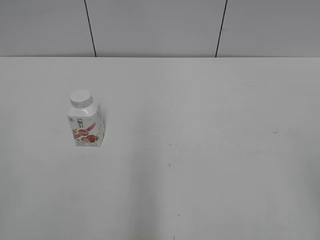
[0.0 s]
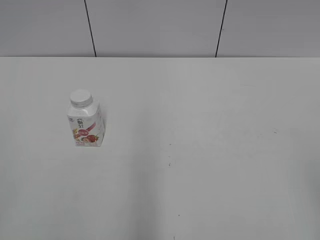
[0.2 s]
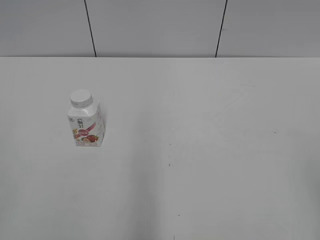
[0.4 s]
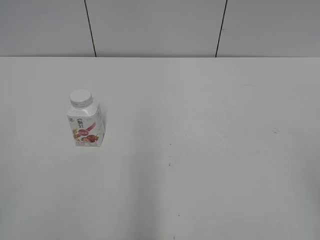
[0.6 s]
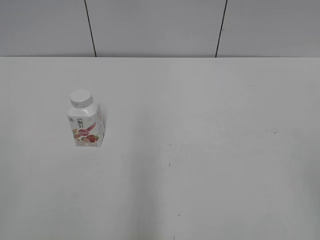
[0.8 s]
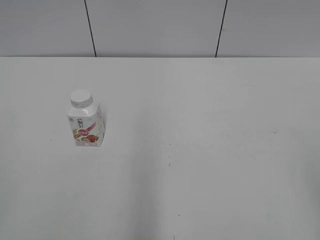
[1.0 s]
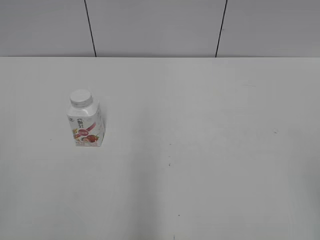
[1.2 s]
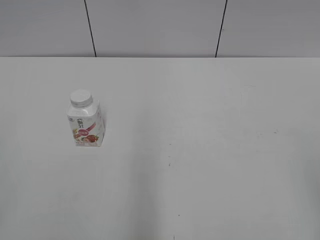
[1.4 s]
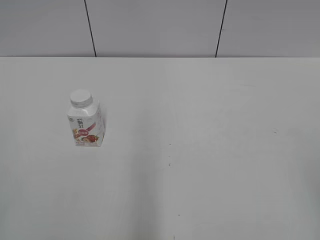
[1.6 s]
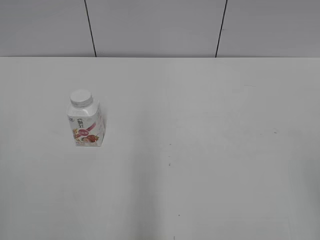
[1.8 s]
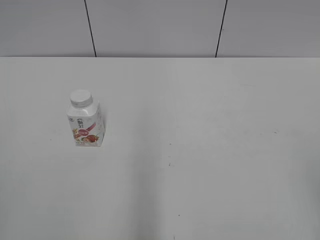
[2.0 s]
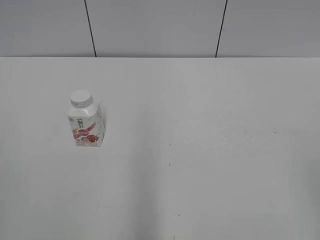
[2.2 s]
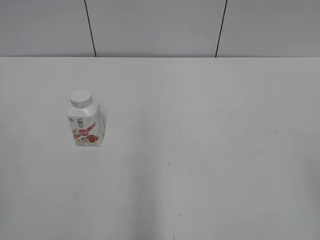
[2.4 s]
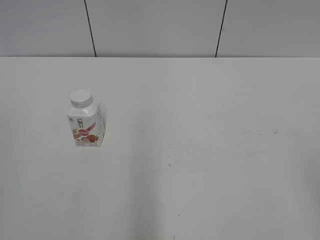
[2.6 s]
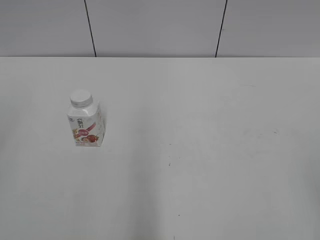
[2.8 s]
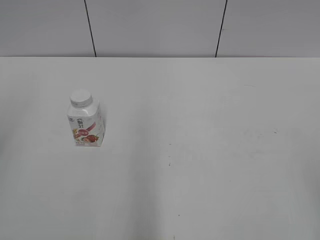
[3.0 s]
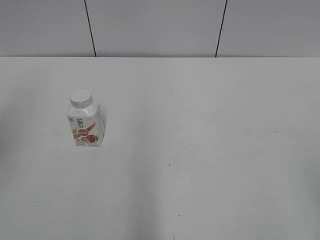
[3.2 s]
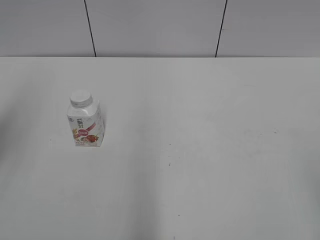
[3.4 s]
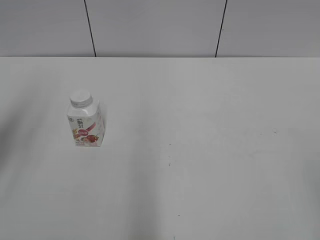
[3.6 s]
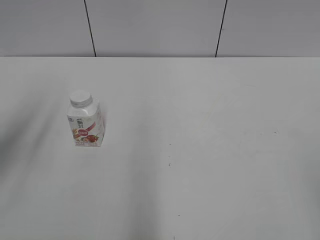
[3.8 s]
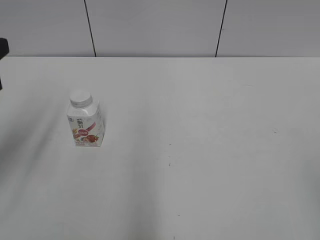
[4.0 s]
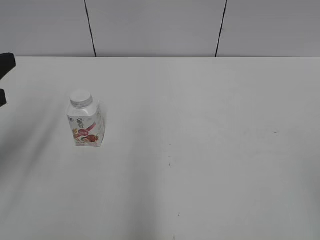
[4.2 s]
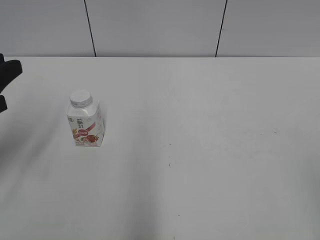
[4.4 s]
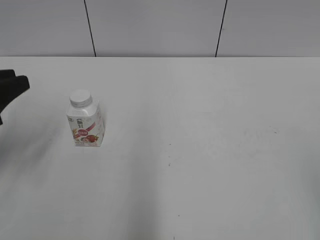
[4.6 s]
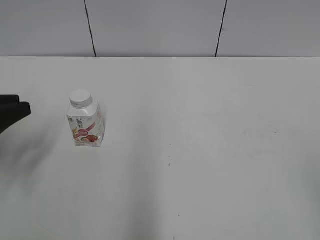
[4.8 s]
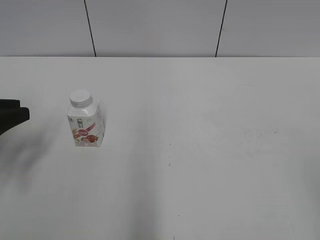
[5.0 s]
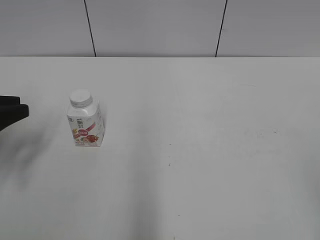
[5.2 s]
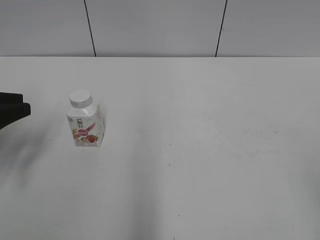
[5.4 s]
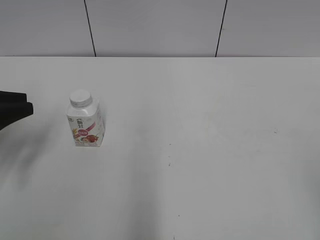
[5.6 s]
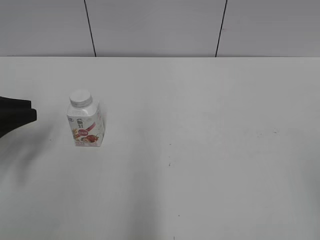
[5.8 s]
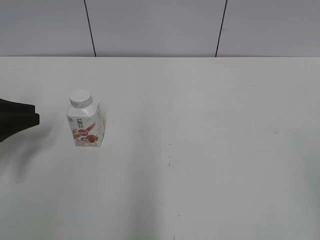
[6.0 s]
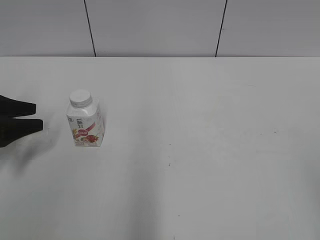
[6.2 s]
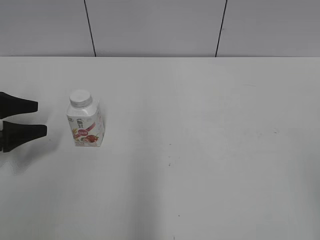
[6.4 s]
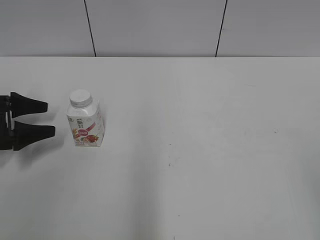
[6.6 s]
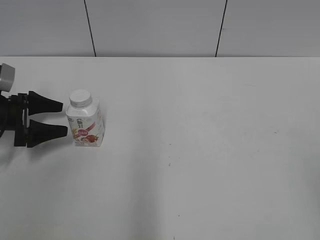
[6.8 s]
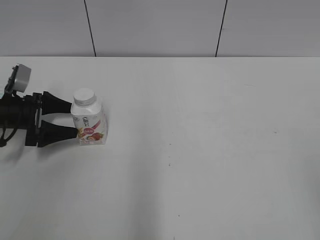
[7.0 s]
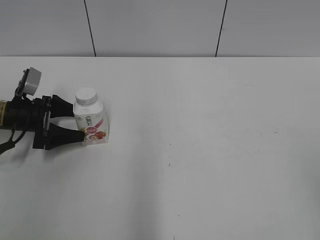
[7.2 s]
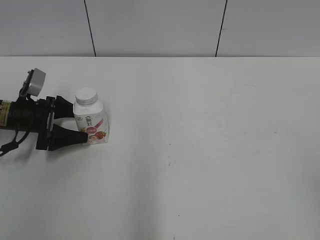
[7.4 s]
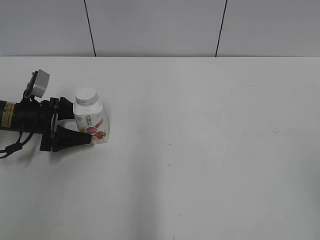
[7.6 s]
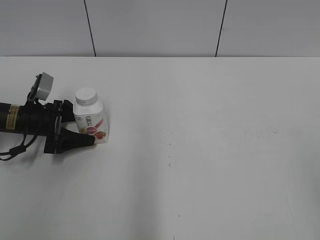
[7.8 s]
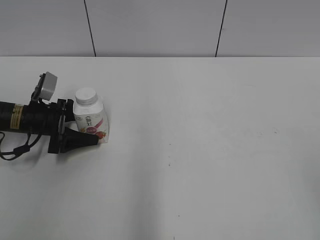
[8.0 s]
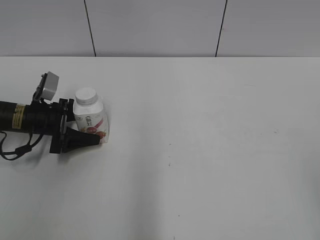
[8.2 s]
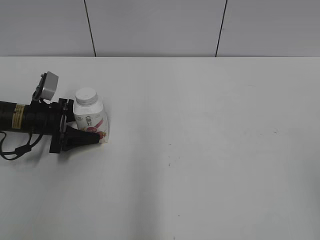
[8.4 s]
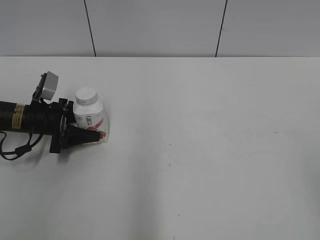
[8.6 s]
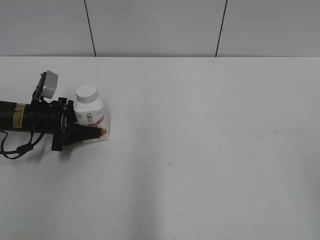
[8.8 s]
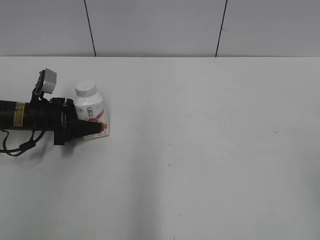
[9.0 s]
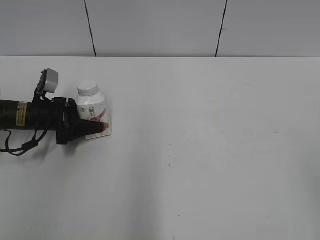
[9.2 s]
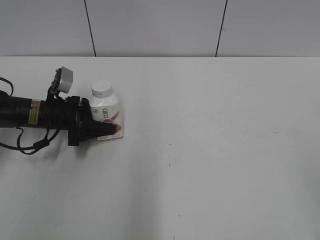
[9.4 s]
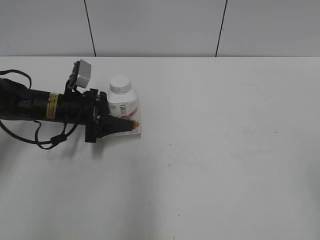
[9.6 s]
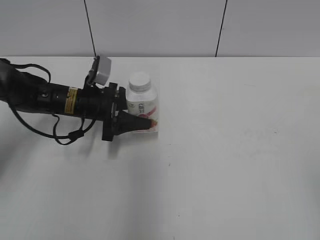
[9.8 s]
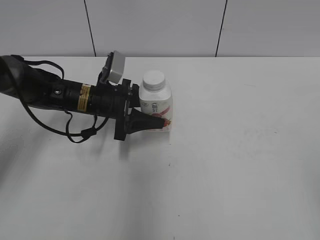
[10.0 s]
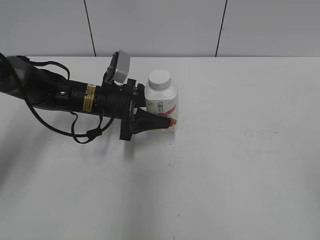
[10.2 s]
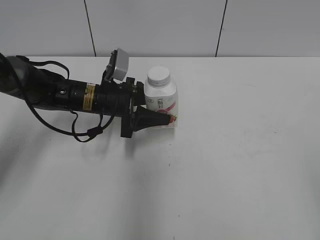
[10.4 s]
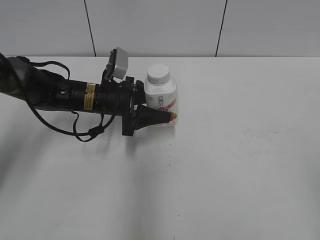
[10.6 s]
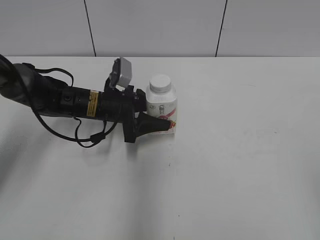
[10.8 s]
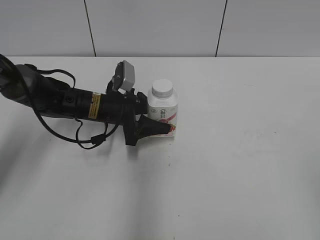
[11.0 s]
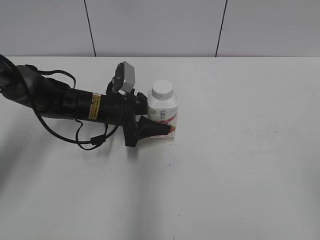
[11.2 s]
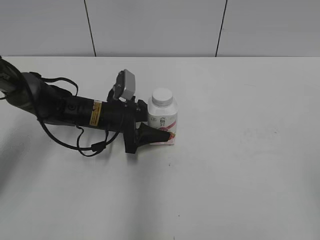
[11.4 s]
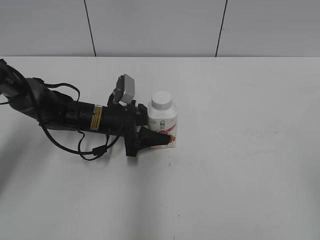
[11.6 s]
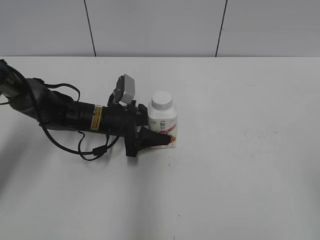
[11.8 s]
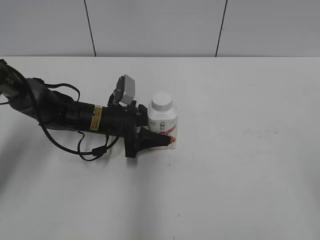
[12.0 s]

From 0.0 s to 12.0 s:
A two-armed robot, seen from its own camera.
Step, from 0.0 s to 8.4 s: Grab the Yili Changqing with the left hand.
From 3.0 s to 4.4 s: The left gripper goes approximately 20 cm downward and forward.
From 4.4 s to 6.0 s: The left gripper shifts about 10 cm downward, forward and to the left.
From 6.0 s to 7.6 s: The left gripper moves forward, downward and to the right, some 15 cm, and opens.
From 7.6 s to 9.0 s: The left gripper closes up.
From 9.0 s to 10.4 s: The left gripper shifts about 15 cm to the right.
From 10.4 s to 12.0 s: The left gripper moves downward, roughly 5 cm.

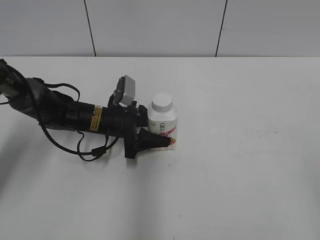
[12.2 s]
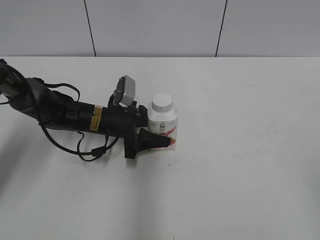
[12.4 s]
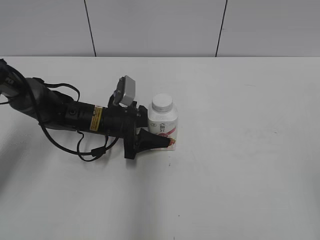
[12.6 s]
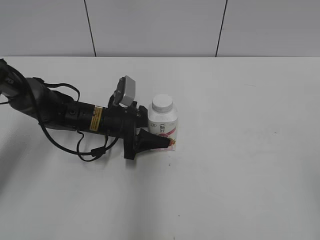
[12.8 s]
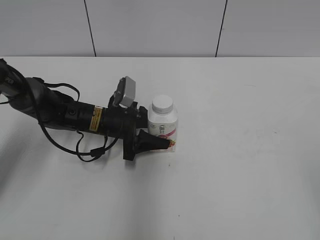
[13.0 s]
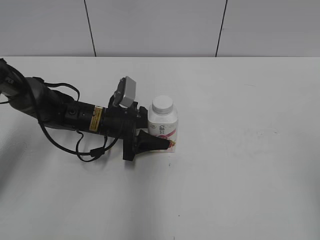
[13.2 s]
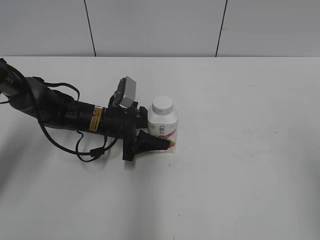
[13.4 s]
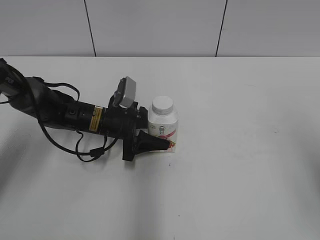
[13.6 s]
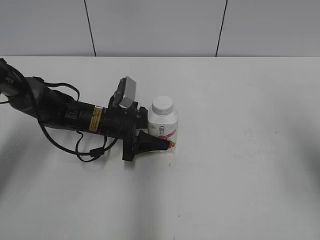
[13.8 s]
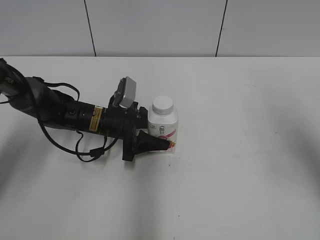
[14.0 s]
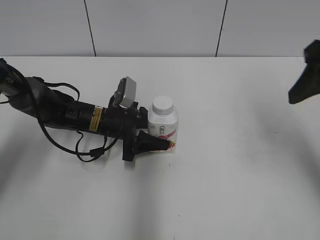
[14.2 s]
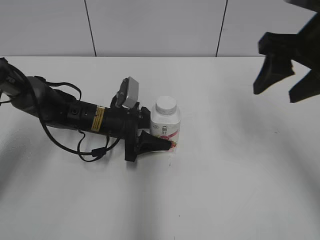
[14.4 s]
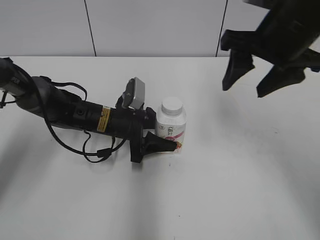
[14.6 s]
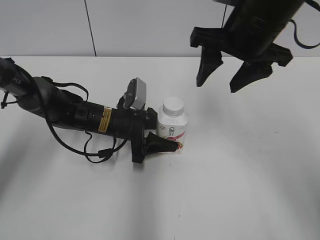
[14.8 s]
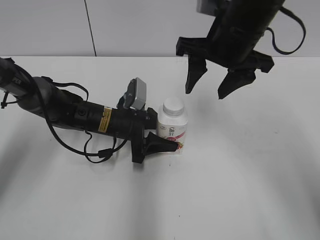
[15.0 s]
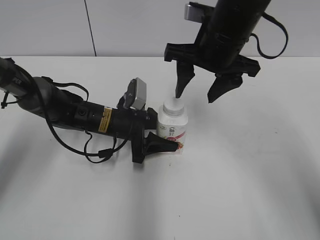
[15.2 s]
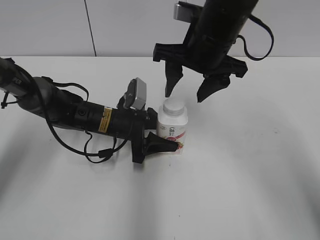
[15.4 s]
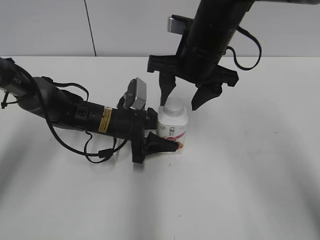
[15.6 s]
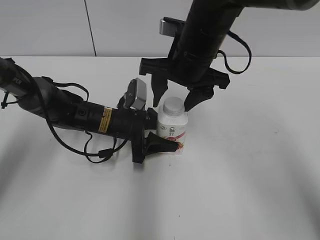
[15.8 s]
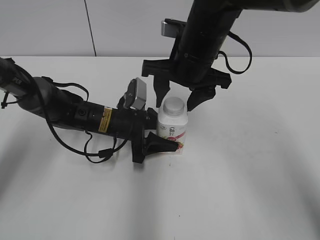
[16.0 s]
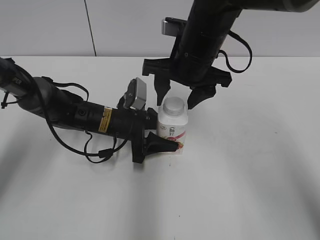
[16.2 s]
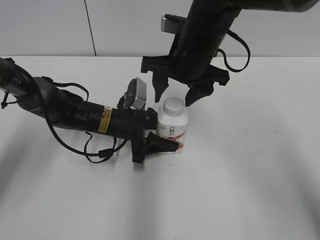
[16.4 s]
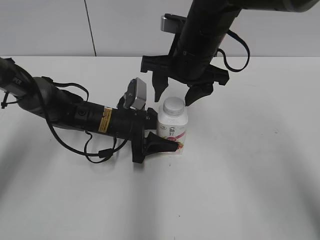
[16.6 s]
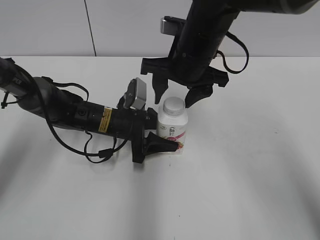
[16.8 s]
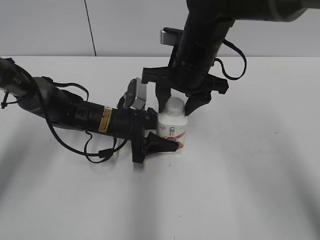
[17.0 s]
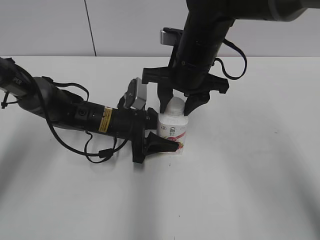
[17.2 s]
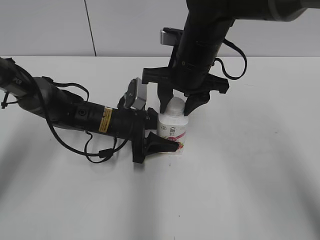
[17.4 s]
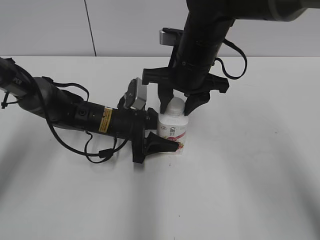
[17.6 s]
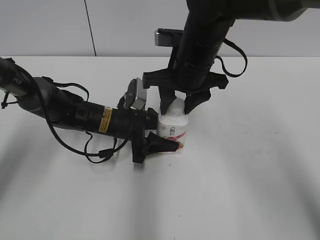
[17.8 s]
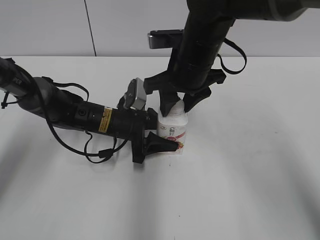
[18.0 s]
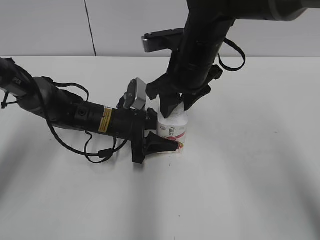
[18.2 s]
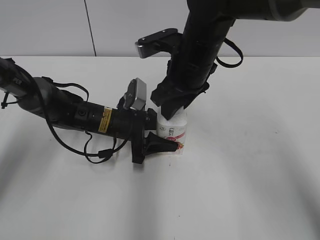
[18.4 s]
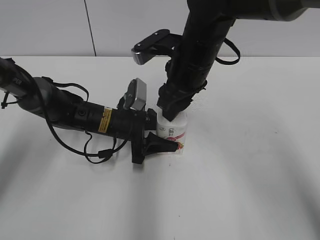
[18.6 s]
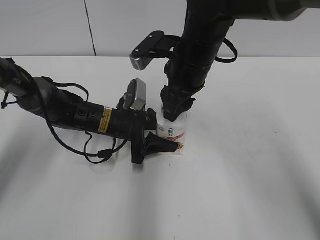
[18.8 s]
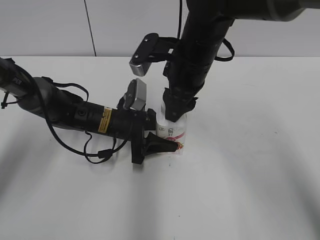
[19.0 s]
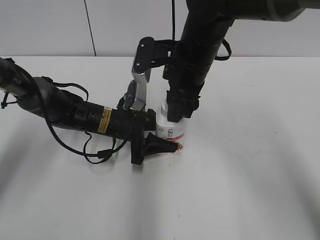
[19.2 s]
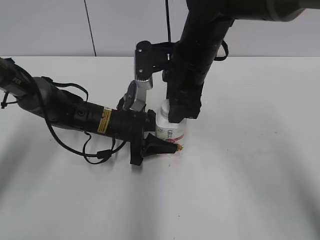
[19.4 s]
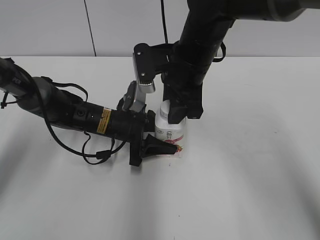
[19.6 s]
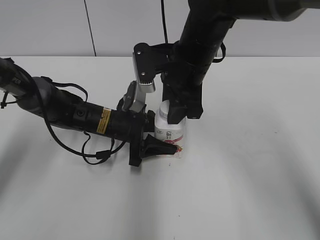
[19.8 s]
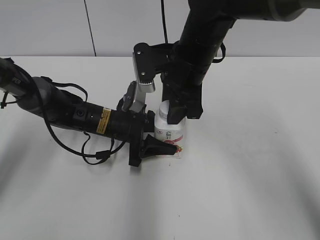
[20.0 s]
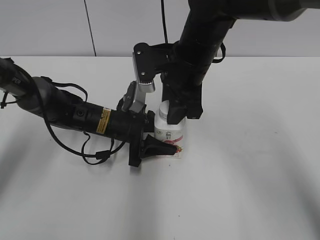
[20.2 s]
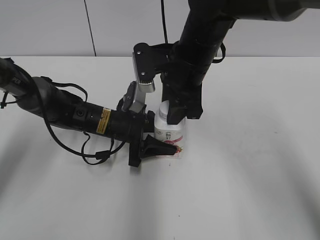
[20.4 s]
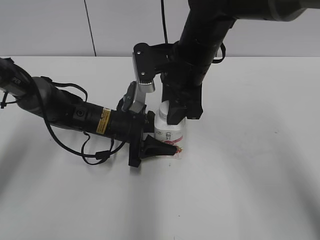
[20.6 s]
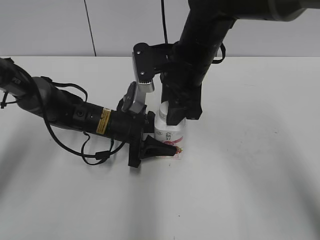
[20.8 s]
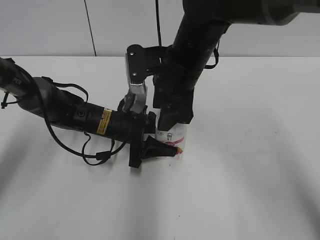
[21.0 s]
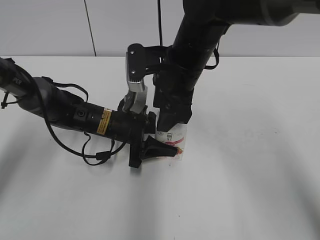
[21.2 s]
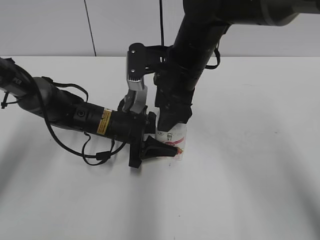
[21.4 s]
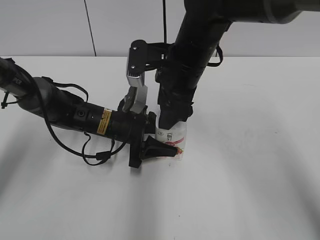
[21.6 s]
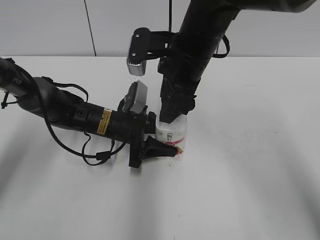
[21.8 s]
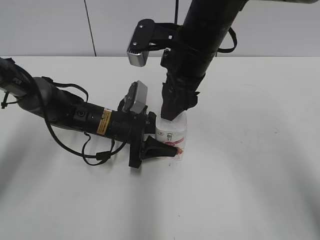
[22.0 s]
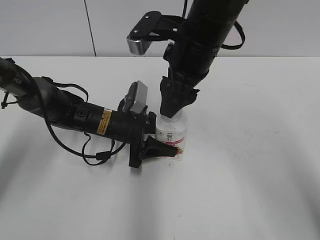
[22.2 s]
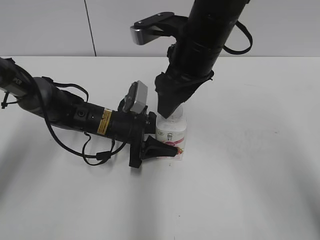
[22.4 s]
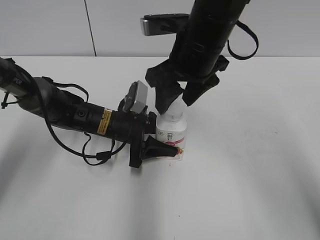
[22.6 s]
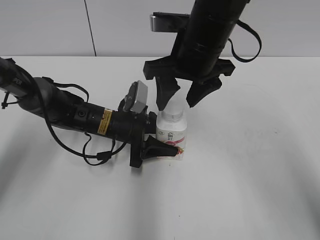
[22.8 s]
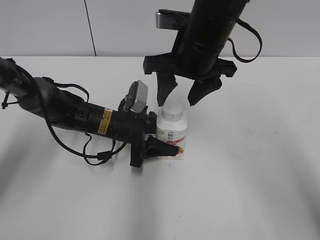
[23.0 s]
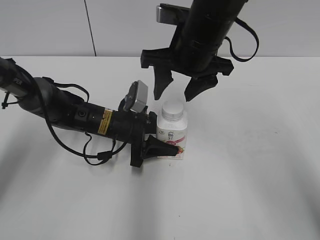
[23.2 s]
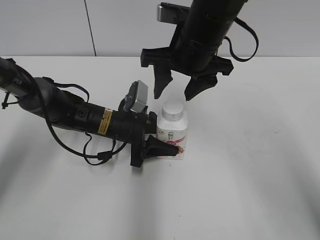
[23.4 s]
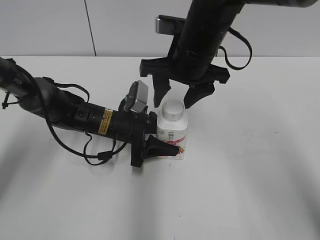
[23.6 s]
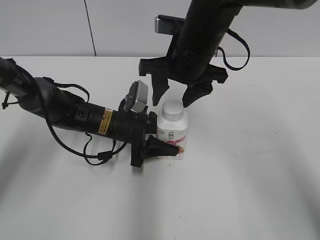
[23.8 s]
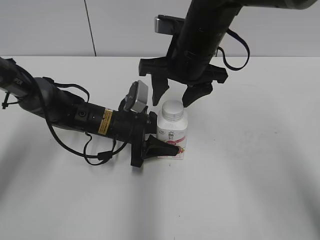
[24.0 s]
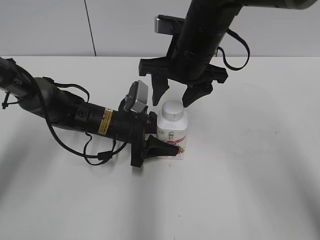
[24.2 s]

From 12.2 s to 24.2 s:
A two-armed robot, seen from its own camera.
Step, from 12.2 s to 14.2 s: Move the Yili Changqing from left to right.
From 12.2 s to 13.8 s: The right gripper moves forward, roughly 15 cm.
From 13.8 s to 15.2 s: The right gripper shifts approximately 25 cm to the left and forward.
From 15.2 s to 16.6 s: The grippers stay close to where they were, moving slightly.
From 16.6 s to 18.2 s: The right gripper closes.
From 19.8 s to 21.2 s: The right gripper opens its fingers.
From 21.2 s to 22.6 s: The right gripper shifts by approximately 5 cm.
